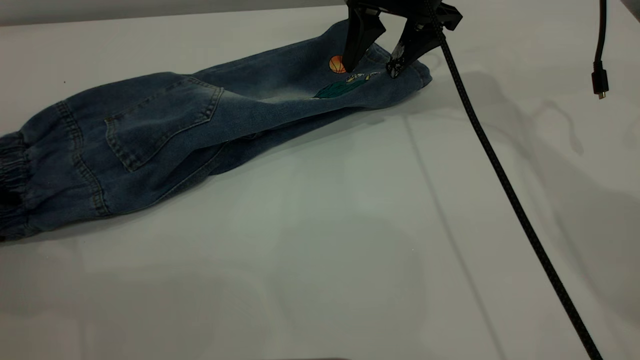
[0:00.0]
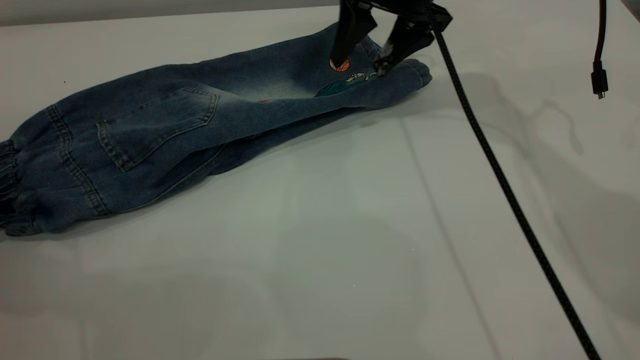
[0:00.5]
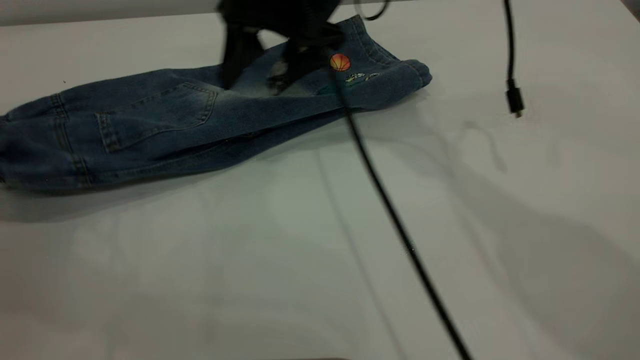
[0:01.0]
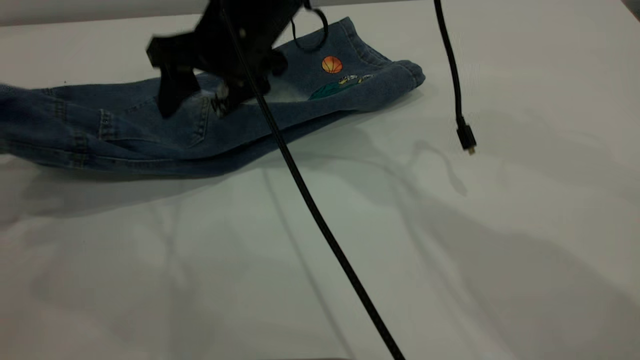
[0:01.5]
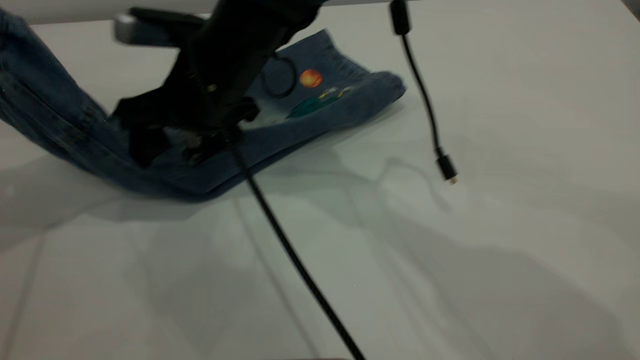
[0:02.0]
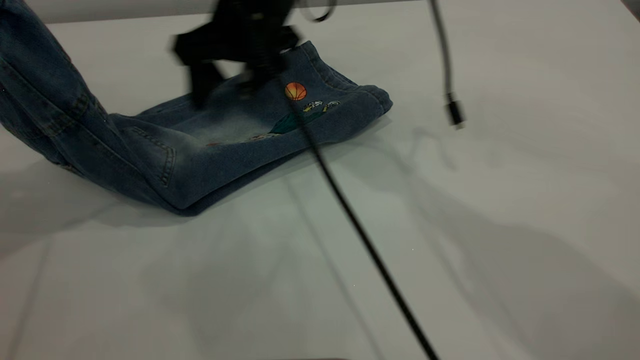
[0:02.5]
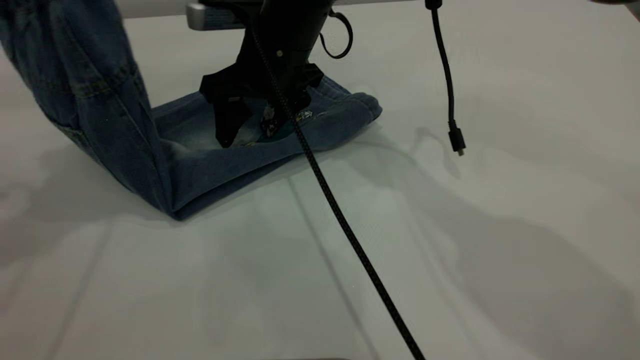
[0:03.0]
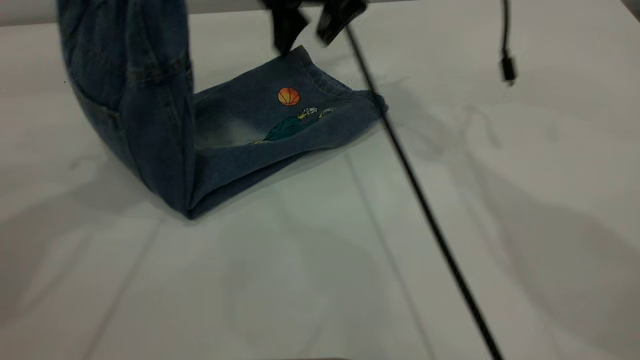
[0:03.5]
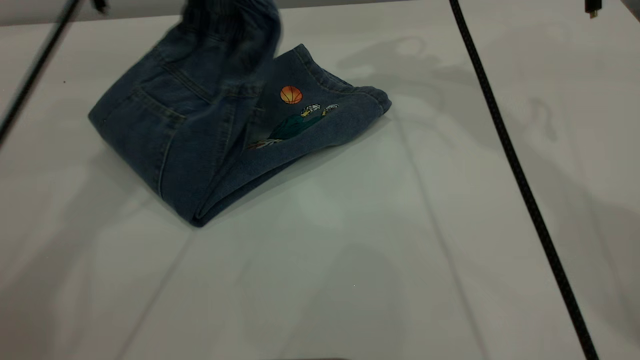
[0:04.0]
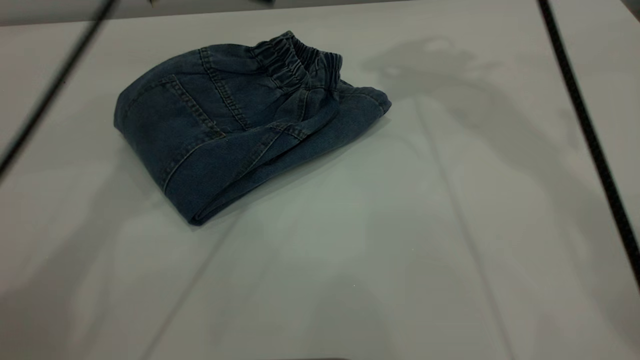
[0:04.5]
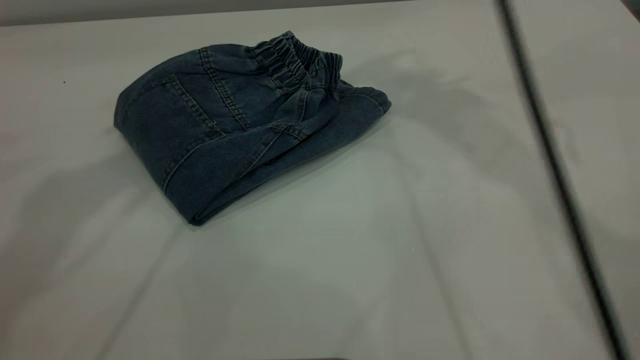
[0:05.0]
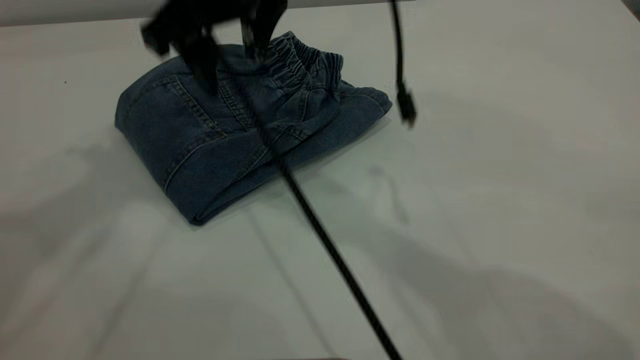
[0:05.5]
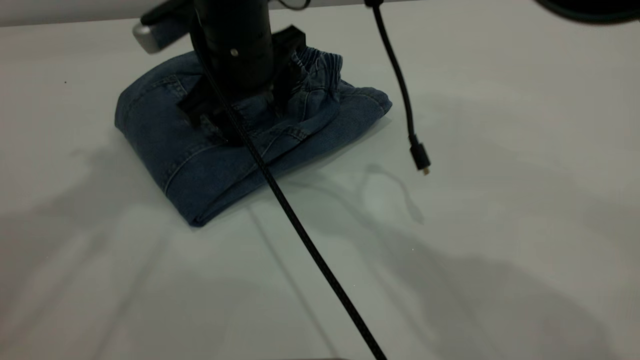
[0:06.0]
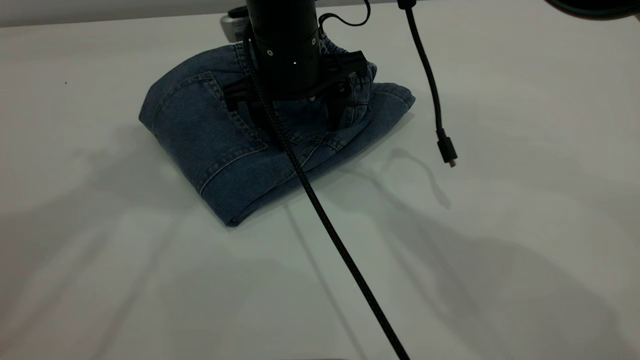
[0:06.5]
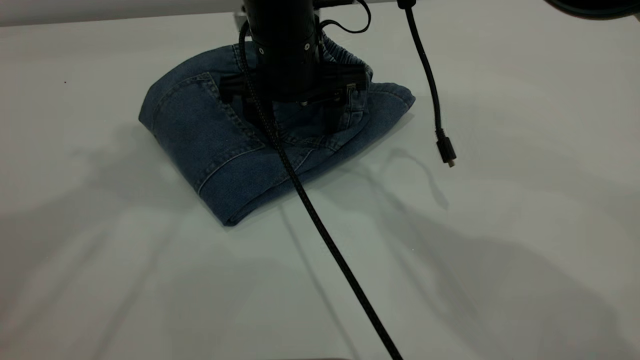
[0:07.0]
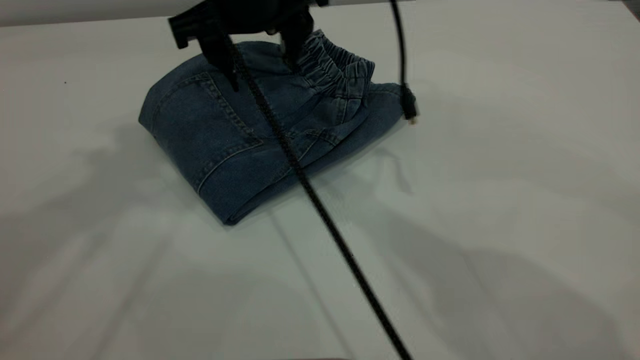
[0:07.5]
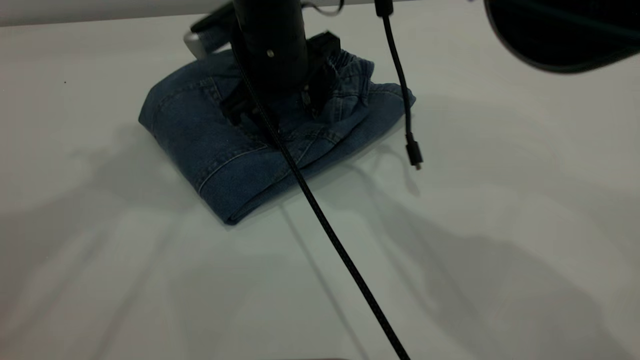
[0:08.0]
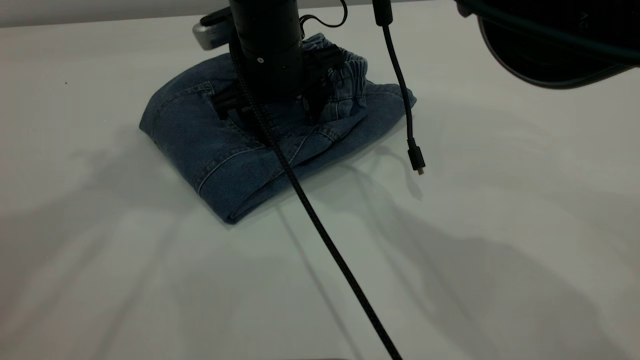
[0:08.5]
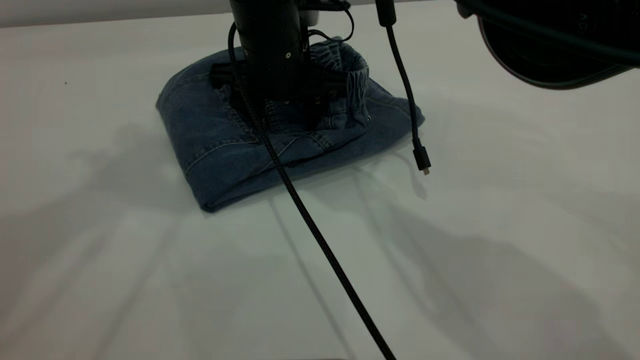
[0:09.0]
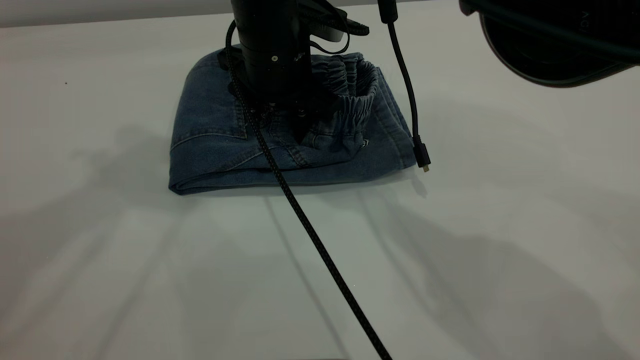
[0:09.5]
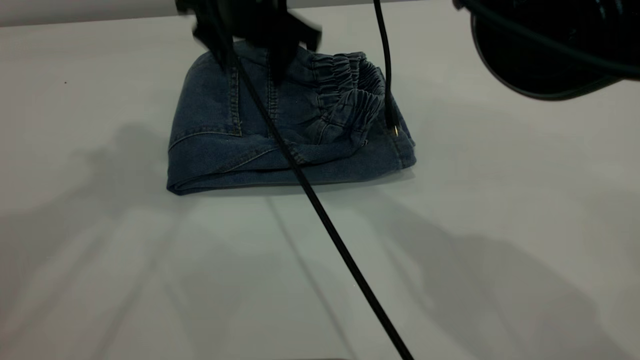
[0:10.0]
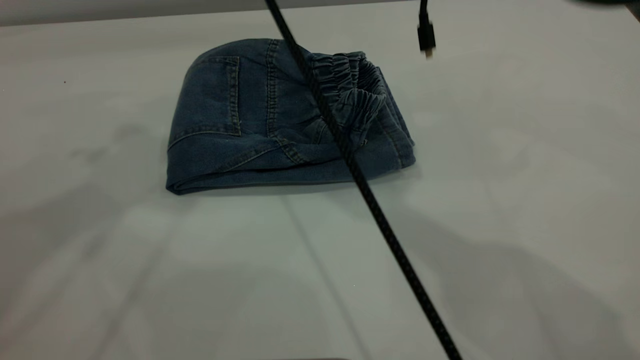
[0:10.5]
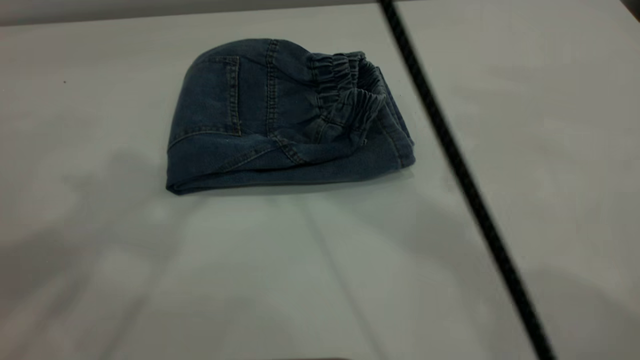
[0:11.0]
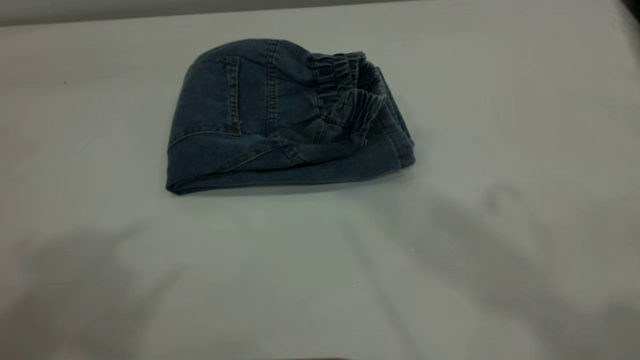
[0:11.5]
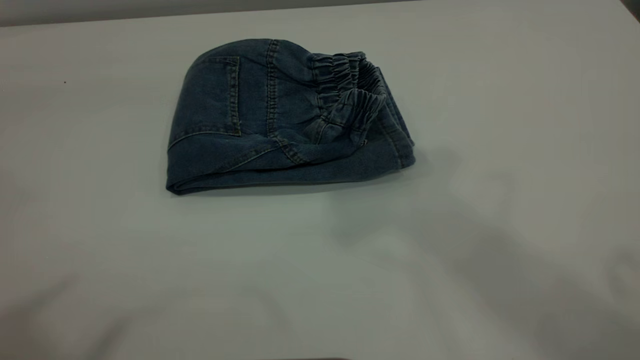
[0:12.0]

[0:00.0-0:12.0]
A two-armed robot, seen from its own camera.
Step, 0:01.0 to 0:04.5: Fold the pants from left to right.
0:00.0 to 0:02.0: The left gripper shifts about 20 cm upward and to the right, and closes up. Meanwhile the right gripper heads to the left and backward, covering approximately 25 cm.
0:02.0 to 0:04.0: The right gripper is displaced to the right, upward and forward by roughly 25 cm. The left gripper moves to the right and forward, approximately 25 cm.
0:04.0 to 0:06.0: The right gripper shifts about 25 cm to the left, downward and backward. Meanwhile the left gripper heads upward and backward, covering about 25 cm, and opens.
0:06.0 to 0:08.0: The right gripper reaches about 5 cm upward, then returns.
0:08.0 to 0:10.0: The right gripper heads upward, covering roughly 5 cm.
0:10.0 to 0:12.0: The left gripper goes approximately 20 cm backward and upward; the right gripper is displaced upward and backward by approximately 40 cm.
